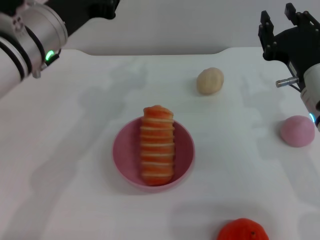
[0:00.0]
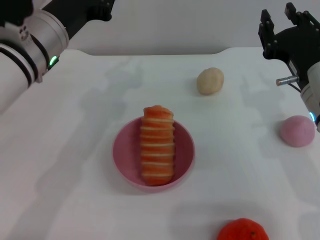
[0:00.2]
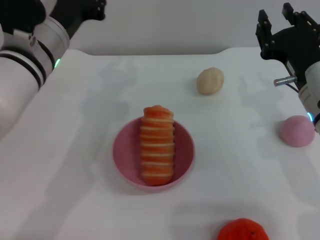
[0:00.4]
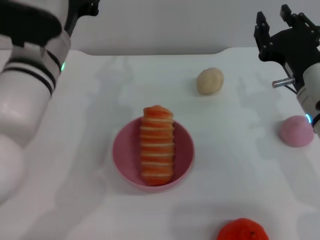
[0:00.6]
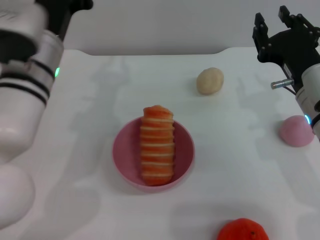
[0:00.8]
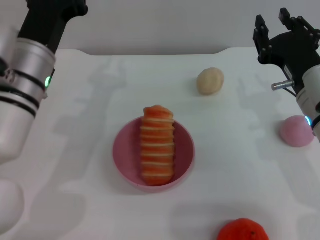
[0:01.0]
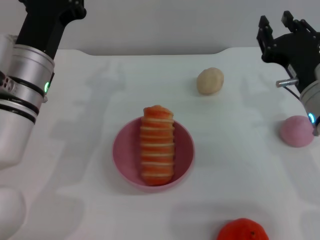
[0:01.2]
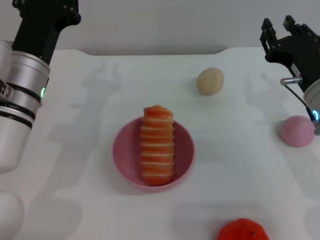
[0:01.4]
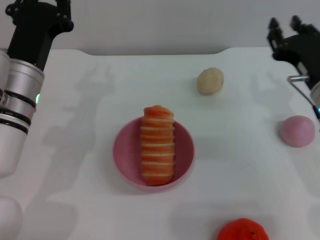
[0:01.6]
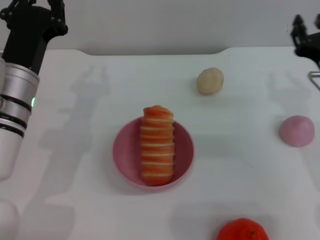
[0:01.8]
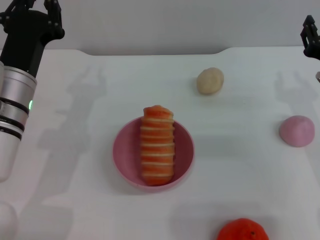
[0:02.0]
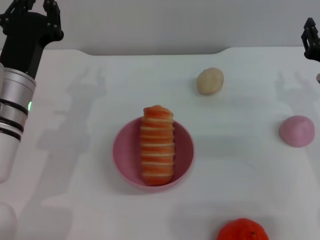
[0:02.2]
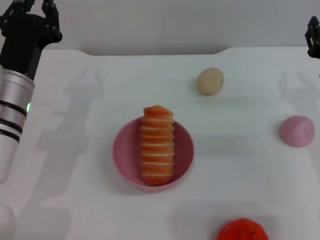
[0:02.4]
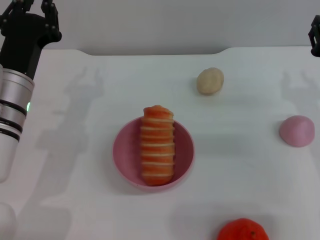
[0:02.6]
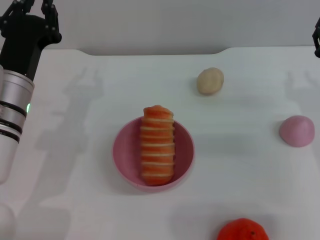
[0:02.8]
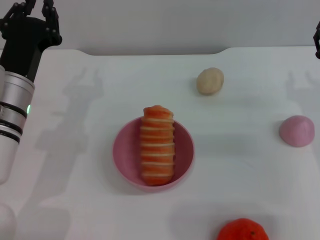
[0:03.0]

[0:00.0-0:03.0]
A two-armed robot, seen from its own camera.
Task of the whole recording: put the bread into the pink bowl and pour it out repeatedly.
0.0 to 1.6 s: The left gripper is displaced downward by about 10 cm.
1.6 to 3.0 s: The grippers make only small movements.

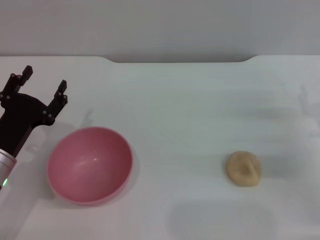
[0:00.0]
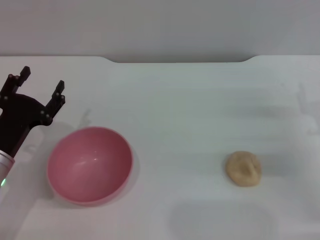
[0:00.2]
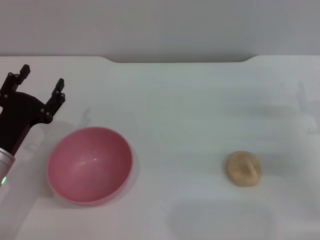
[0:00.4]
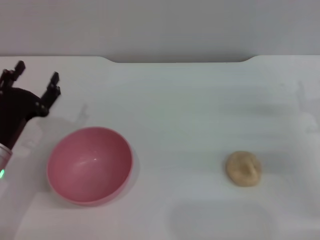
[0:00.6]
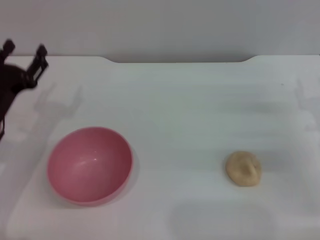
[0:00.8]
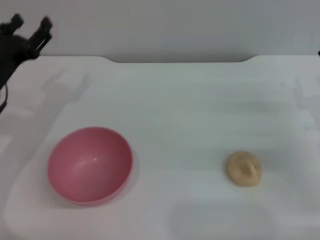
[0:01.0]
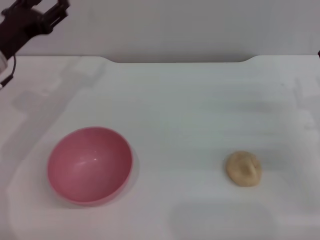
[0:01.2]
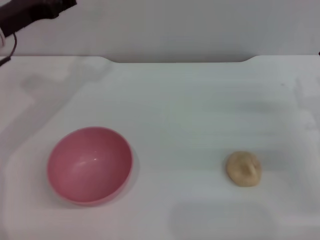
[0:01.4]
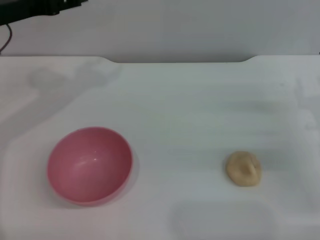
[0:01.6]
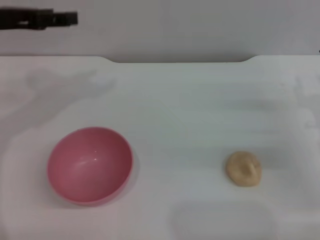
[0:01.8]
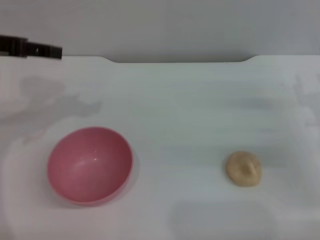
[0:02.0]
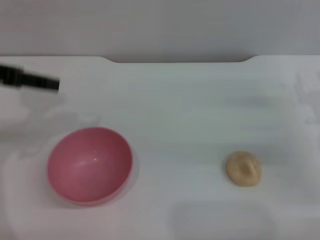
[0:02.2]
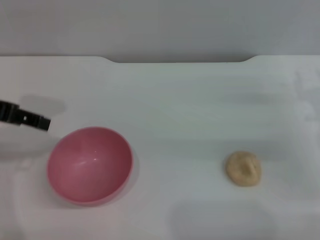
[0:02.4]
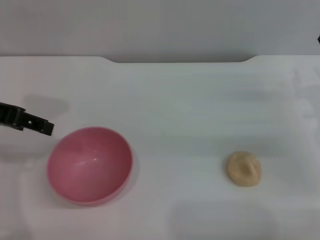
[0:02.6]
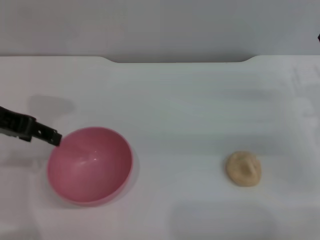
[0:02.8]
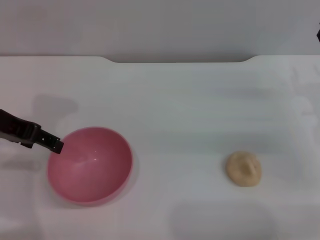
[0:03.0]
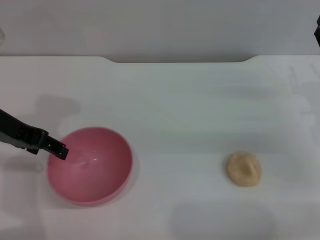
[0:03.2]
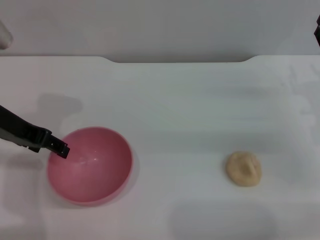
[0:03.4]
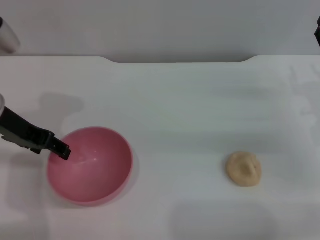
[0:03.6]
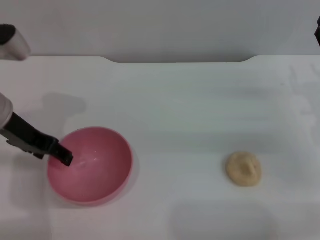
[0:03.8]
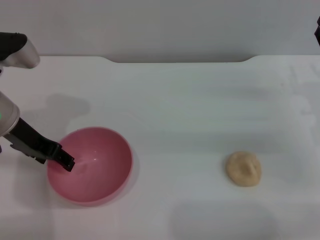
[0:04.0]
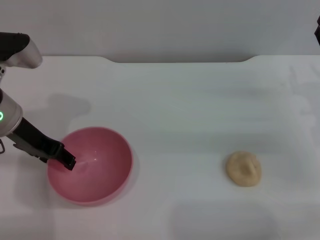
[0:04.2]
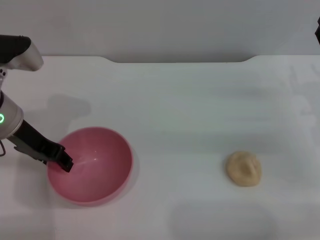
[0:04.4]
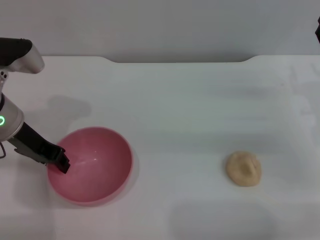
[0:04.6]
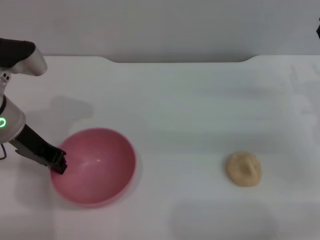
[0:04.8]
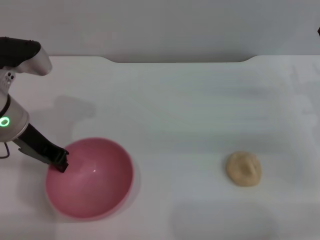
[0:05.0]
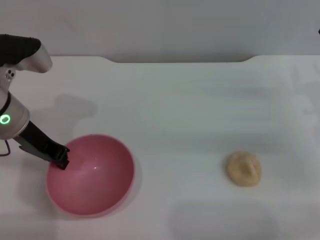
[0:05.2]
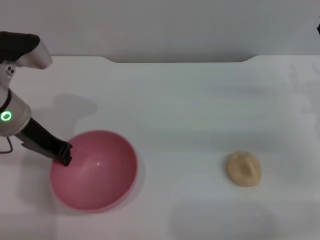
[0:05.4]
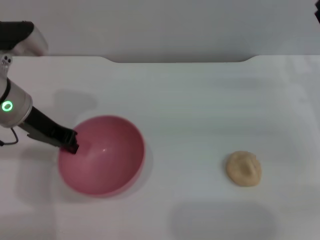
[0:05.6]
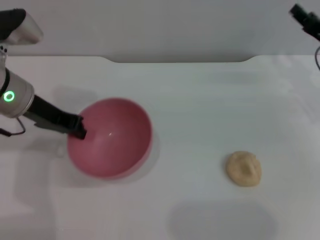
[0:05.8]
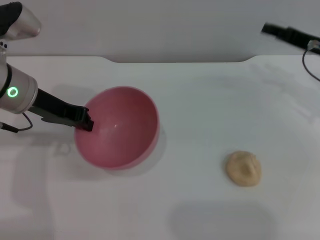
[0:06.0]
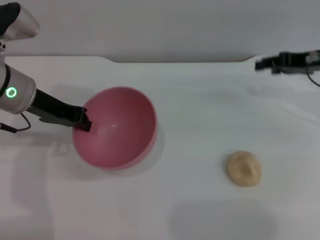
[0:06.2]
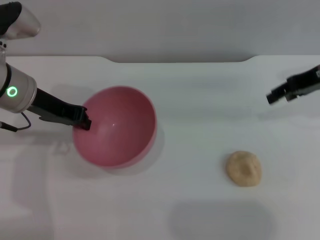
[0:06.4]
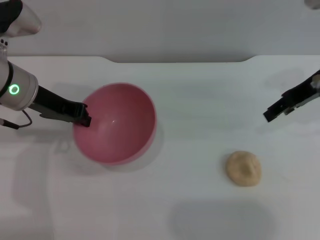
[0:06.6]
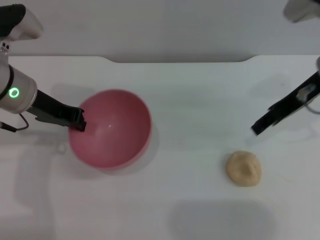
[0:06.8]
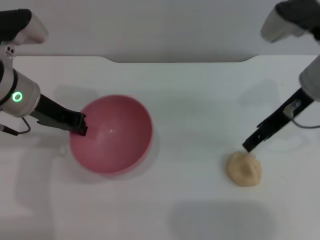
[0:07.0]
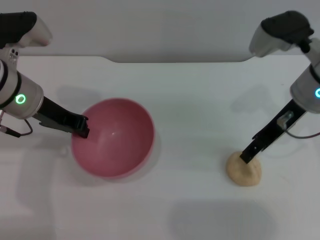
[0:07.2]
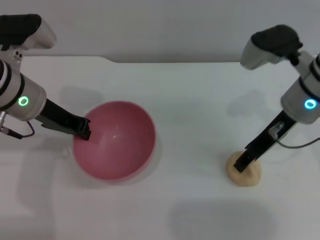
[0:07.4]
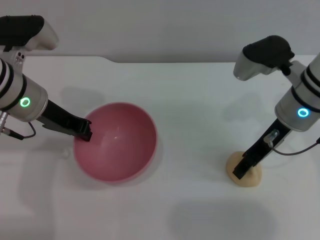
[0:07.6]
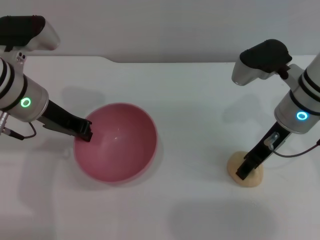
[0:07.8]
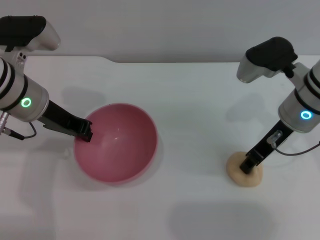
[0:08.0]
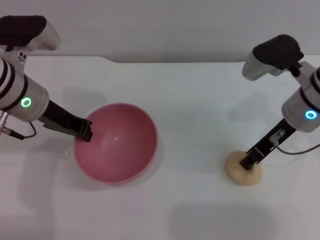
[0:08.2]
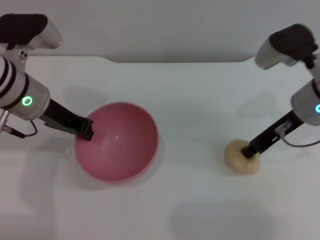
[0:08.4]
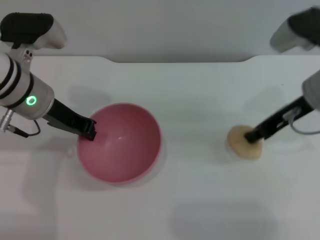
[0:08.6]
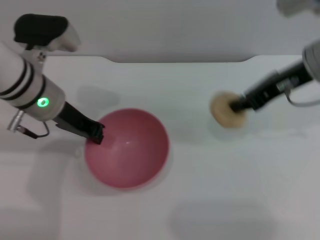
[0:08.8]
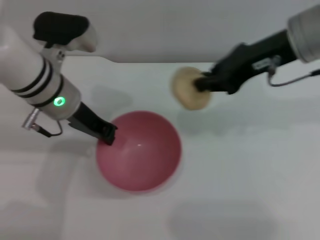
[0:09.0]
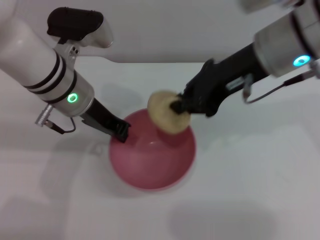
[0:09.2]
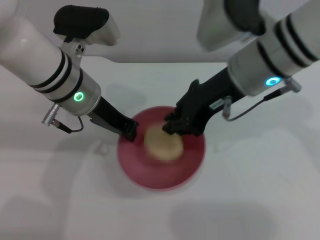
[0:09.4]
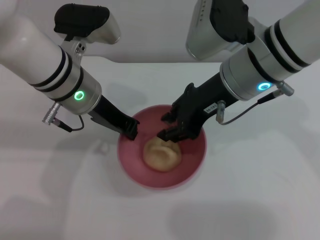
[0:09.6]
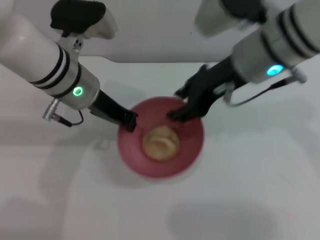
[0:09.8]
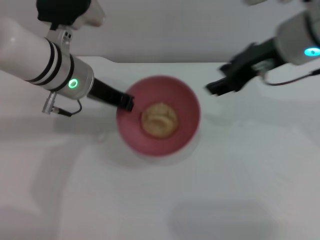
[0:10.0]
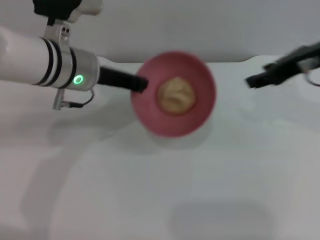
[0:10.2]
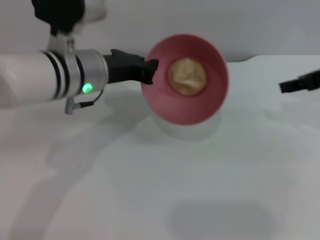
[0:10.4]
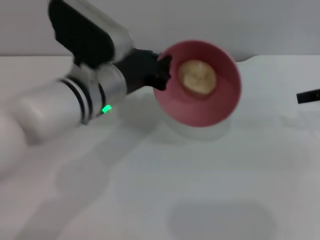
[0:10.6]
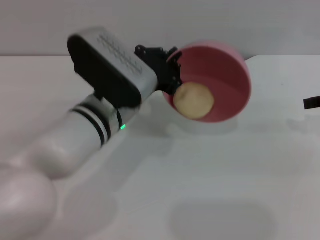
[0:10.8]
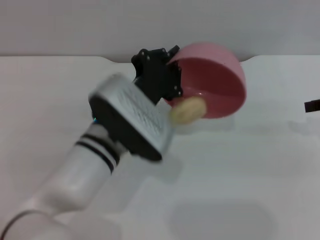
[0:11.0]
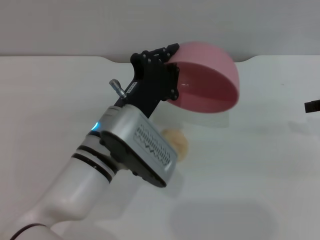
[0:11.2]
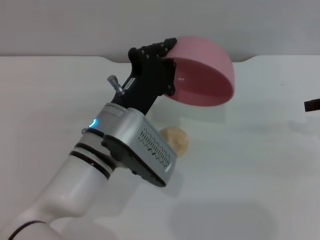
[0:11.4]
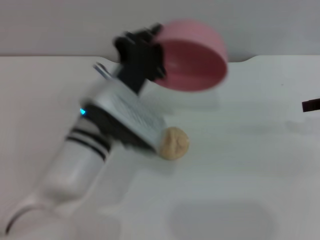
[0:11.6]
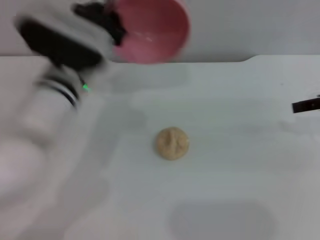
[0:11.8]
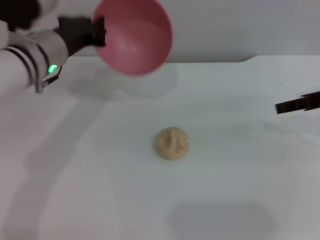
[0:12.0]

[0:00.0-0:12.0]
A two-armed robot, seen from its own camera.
Task of the whole recording: put the egg yolk pastry into the pink bowl and pour it out repeatedly.
Step, 0.0 to 5.8 s: Pick up the bowl with the left gripper.
Step, 6.0 to 8.4 s: Pick up the egg yolk pastry with the right gripper.
Step, 8.6 to 10.0 s: Place the egg yolk pastry into the bowl.
Step, 10.2 to 11.6 s: Pour the egg yolk pastry out of bowl.
0.0 to 1.6 s: The left gripper shifts approximately 20 cm upward and forward.
1.6 to 3.0 s: The left gripper is displaced backward by approximately 5 cm.
3.0 to 4.4 s: The left gripper goes about 5 cm downward.
4.4 to 6.0 s: The right gripper heads forward, covering some 5 cm. The left gripper closes up.
6.0 to 7.6 s: The right gripper travels to the left by approximately 10 cm.
7.6 to 9.0 s: The right gripper moves upward, about 10 cm, and closes. Meanwhile the left gripper shifts roughly 5 cm to the right.
9.0 to 10.4 s: The right gripper moves to the right, approximately 10 cm, and opens.
10.4 to 12.0 s: The left gripper travels to the left by about 5 cm, and travels backward and back again, roughly 10 cm each way.

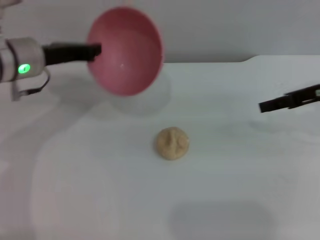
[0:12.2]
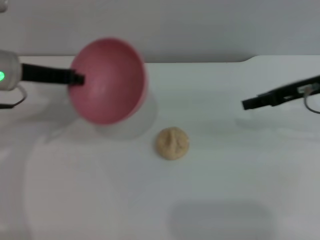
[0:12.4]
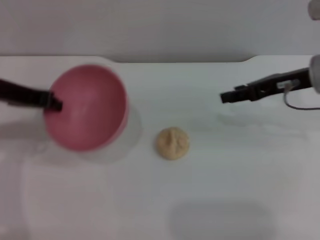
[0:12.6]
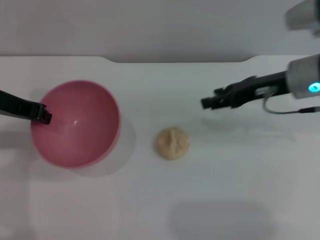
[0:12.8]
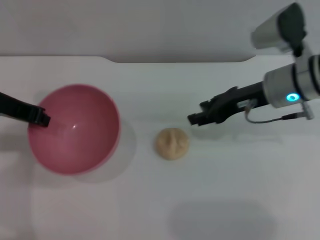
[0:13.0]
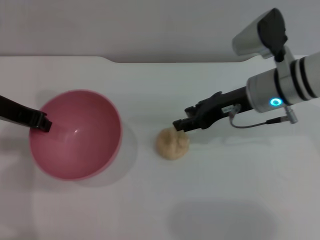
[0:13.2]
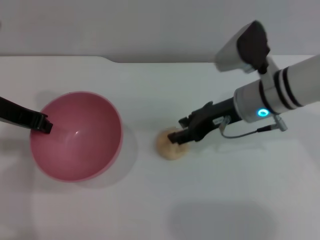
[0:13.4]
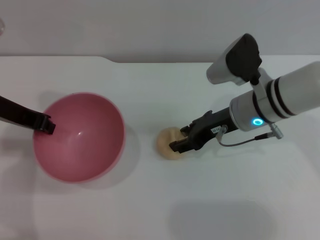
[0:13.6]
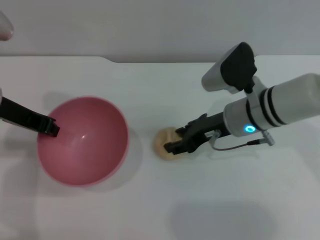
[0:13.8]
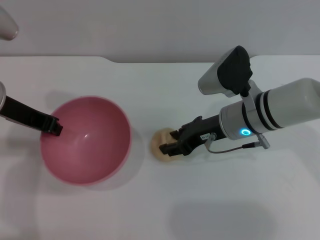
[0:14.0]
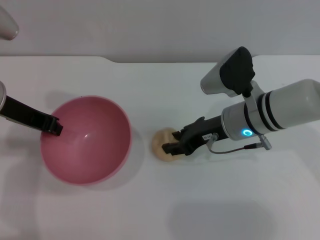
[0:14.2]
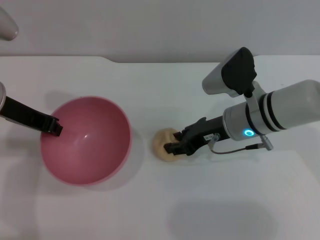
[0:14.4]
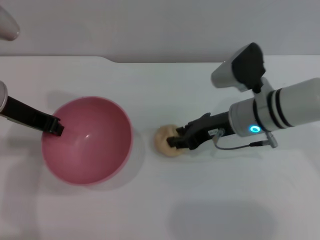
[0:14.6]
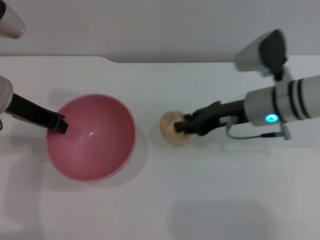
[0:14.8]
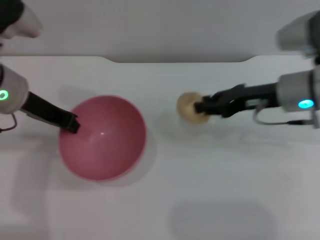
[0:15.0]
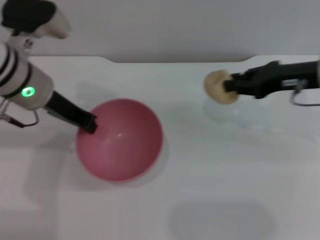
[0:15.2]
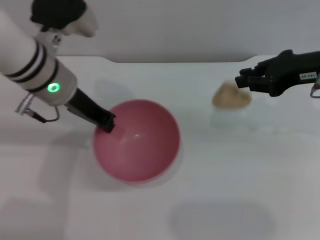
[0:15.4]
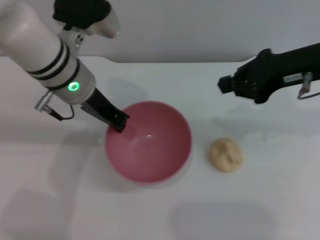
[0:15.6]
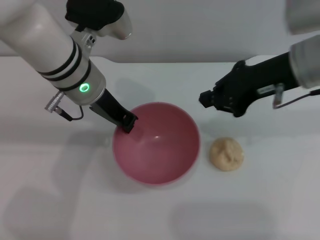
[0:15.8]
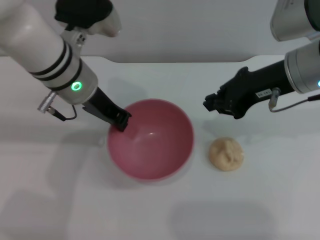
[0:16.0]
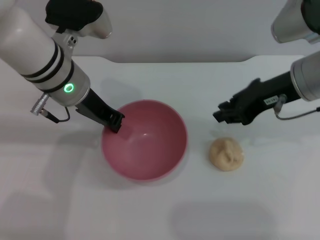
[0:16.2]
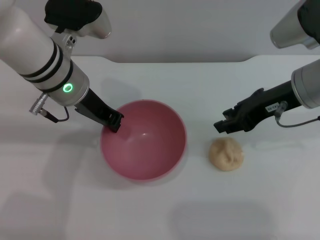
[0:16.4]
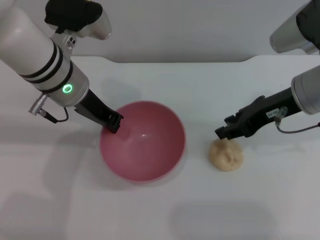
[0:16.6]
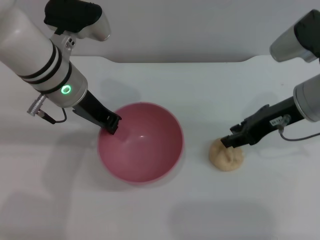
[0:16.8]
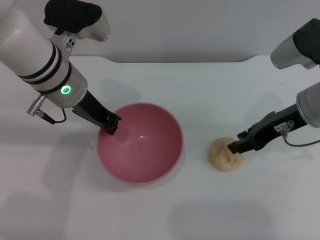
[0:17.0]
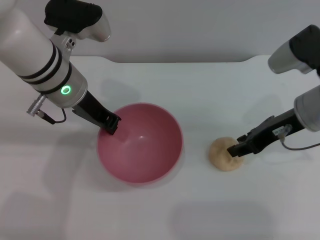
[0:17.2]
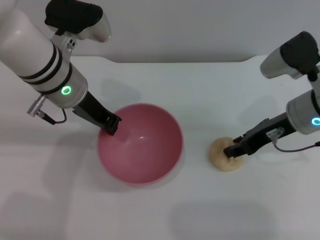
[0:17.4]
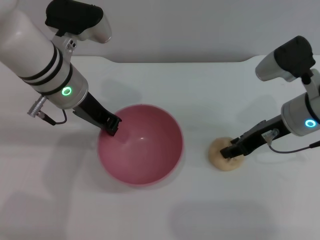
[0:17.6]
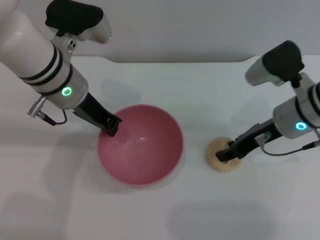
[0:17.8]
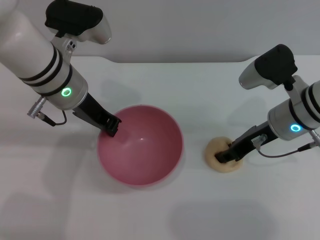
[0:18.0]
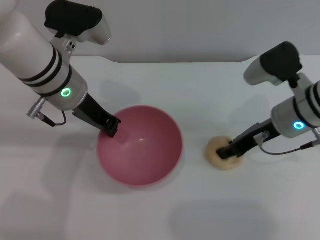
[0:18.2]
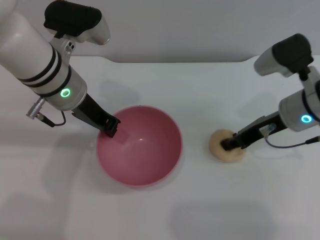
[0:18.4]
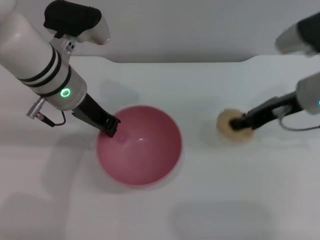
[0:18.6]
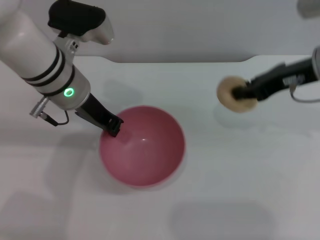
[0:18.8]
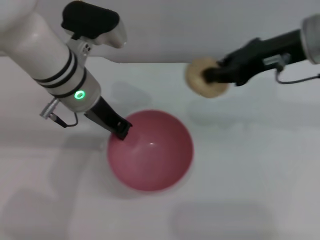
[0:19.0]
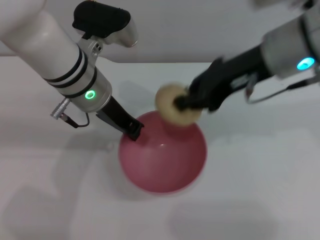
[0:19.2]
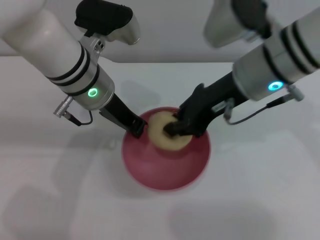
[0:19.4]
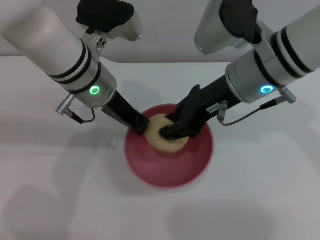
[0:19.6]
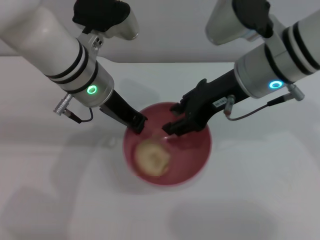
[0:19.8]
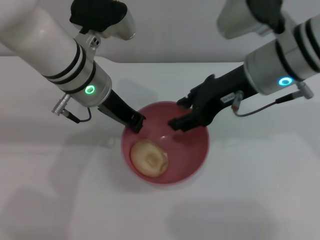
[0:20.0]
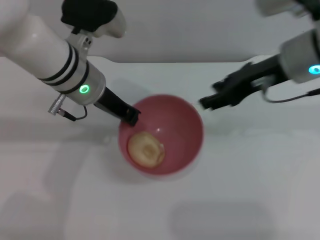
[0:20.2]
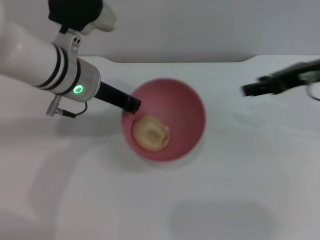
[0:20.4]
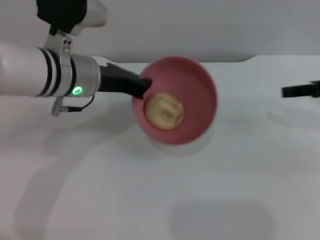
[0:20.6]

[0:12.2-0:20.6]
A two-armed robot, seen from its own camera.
Task of the whole recording: put the egg yolk pastry into the pink bowl and pour it out repeatedly.
Step, 12.2 to 19.0 s: Pick up the egg yolk pastry with the right gripper.
Step, 19.2 to 20.2 s: Place the egg yolk pastry into the bowl.
12.2 to 13.6 s: The left gripper heads backward, covering about 5 cm, while the right gripper travels to the left and downward by about 15 cm.
13.6 to 15.0 s: The right gripper is displaced to the right by about 5 cm, and closes its fingers.
15.0 to 16.4 s: The right gripper shifts approximately 5 cm upward; the left gripper moves to the right, approximately 10 cm.
16.4 to 17.8 s: The right gripper is displaced downward by some 5 cm, and opens.
17.8 to 19.2 s: The right gripper heads upward, covering some 15 cm, and closes.
19.2 to 20.6 s: The right gripper goes about 15 cm to the right, and opens its fingers.
